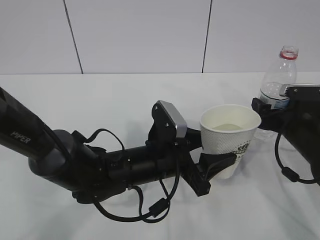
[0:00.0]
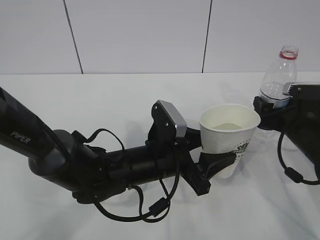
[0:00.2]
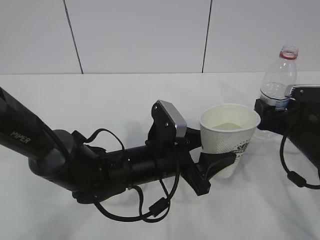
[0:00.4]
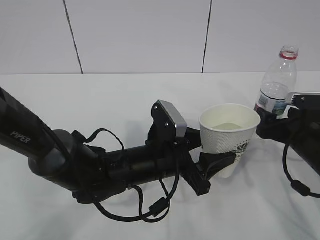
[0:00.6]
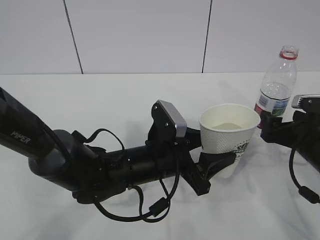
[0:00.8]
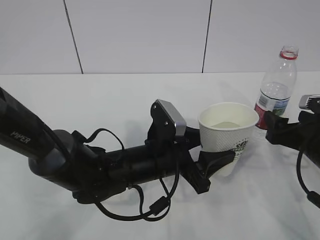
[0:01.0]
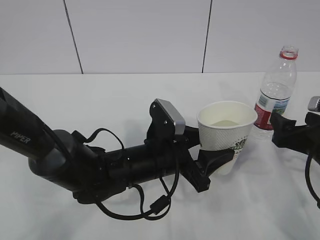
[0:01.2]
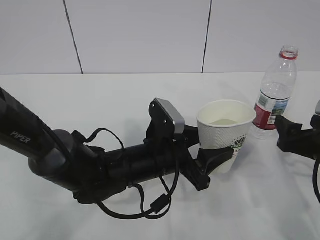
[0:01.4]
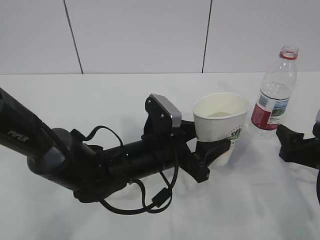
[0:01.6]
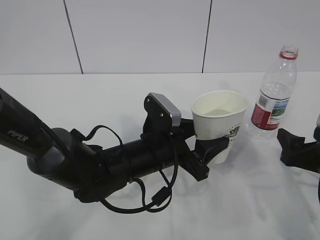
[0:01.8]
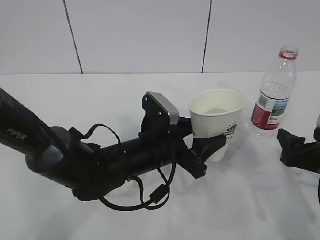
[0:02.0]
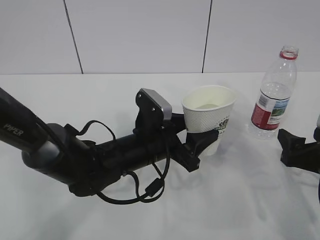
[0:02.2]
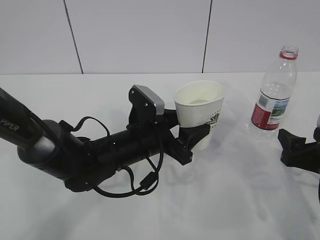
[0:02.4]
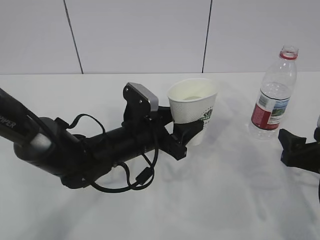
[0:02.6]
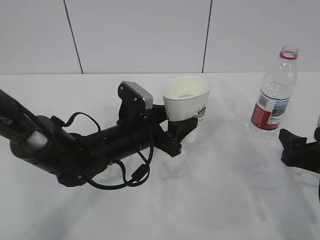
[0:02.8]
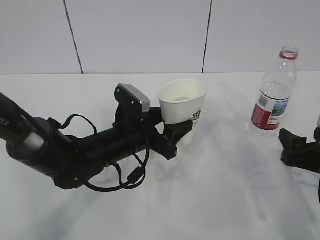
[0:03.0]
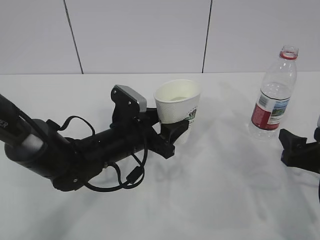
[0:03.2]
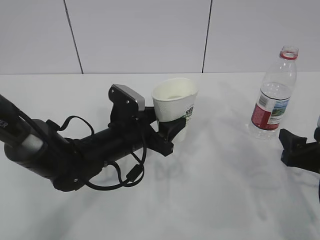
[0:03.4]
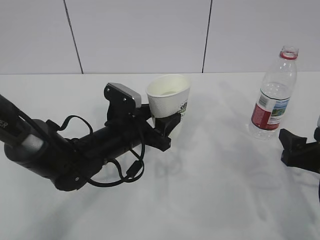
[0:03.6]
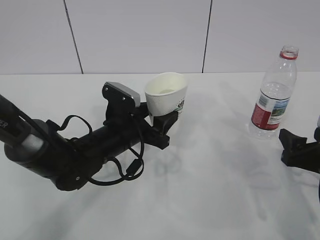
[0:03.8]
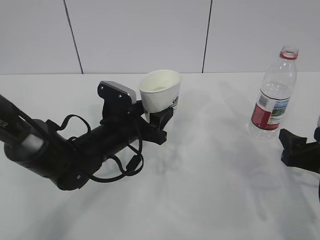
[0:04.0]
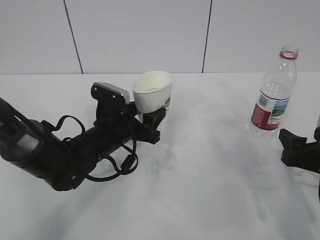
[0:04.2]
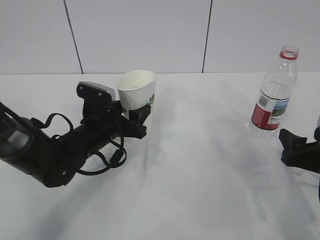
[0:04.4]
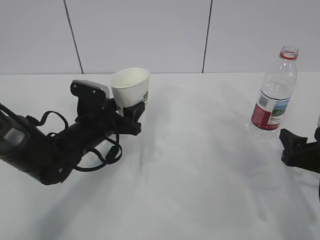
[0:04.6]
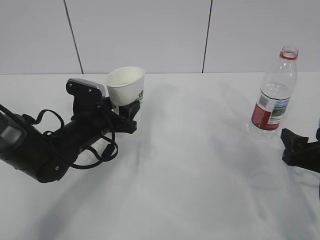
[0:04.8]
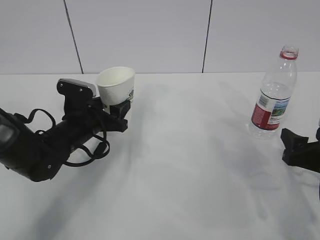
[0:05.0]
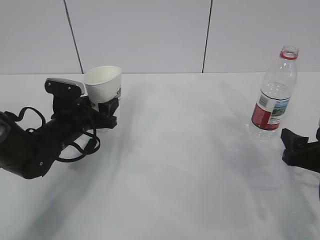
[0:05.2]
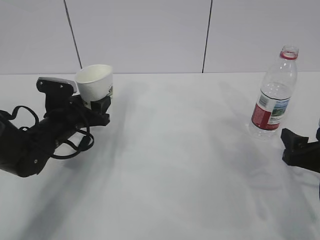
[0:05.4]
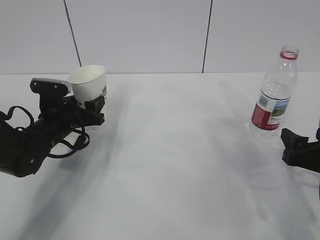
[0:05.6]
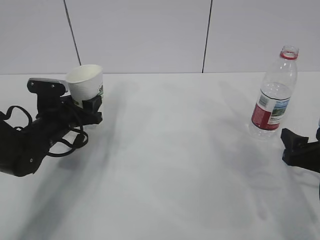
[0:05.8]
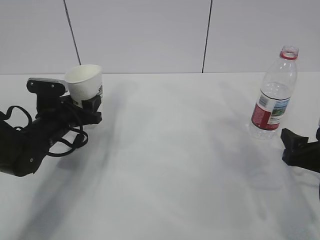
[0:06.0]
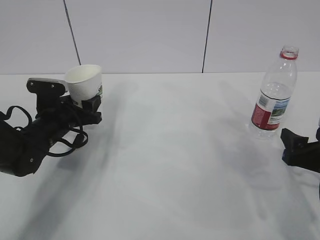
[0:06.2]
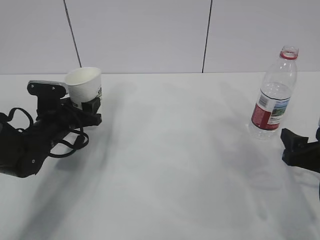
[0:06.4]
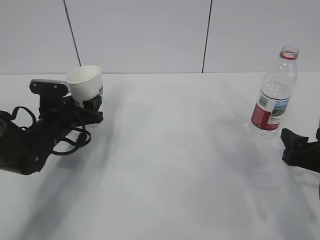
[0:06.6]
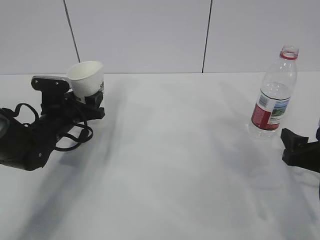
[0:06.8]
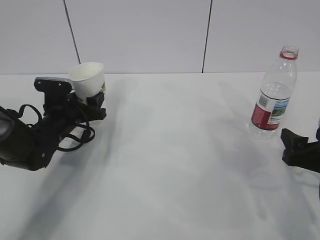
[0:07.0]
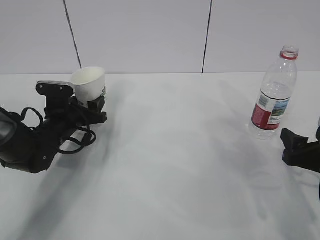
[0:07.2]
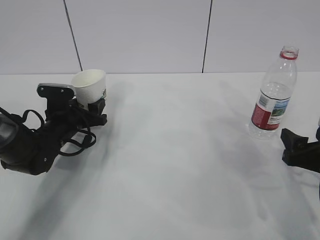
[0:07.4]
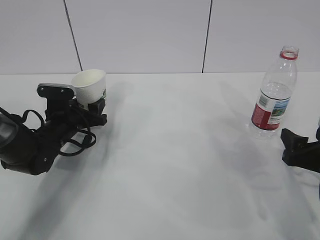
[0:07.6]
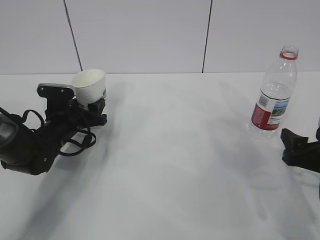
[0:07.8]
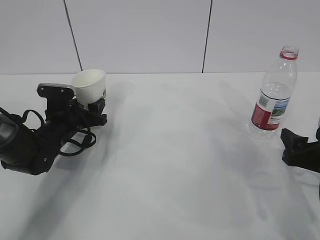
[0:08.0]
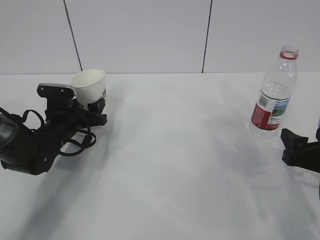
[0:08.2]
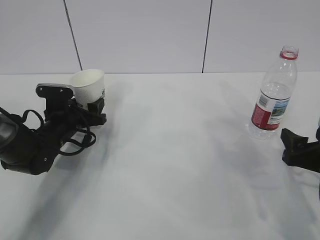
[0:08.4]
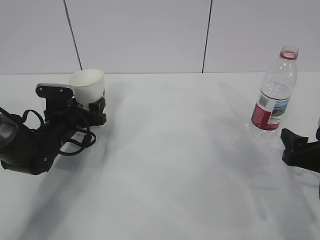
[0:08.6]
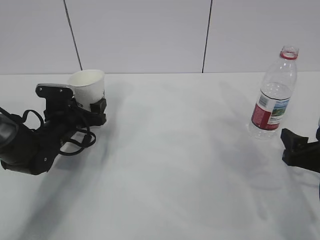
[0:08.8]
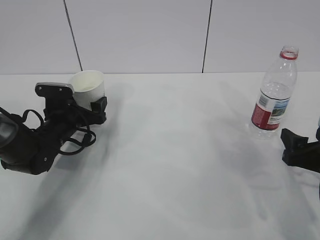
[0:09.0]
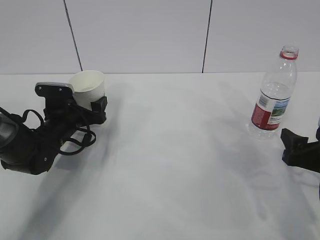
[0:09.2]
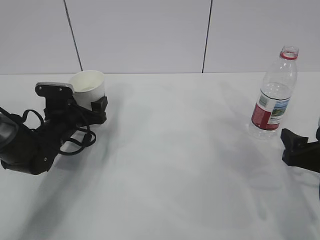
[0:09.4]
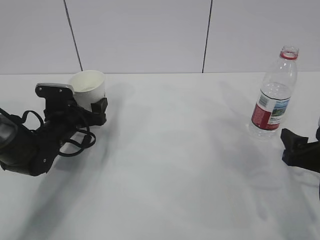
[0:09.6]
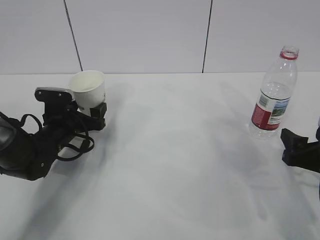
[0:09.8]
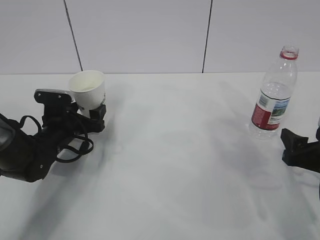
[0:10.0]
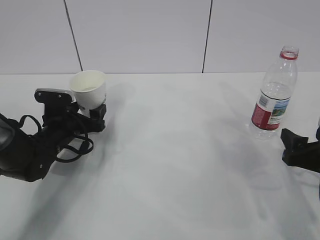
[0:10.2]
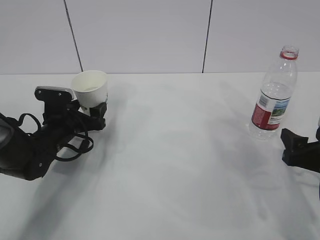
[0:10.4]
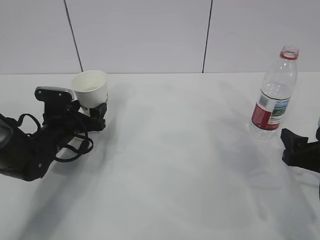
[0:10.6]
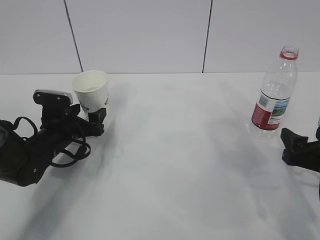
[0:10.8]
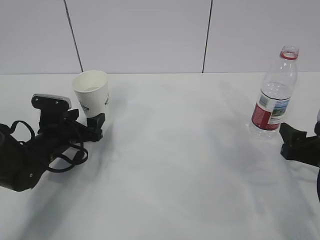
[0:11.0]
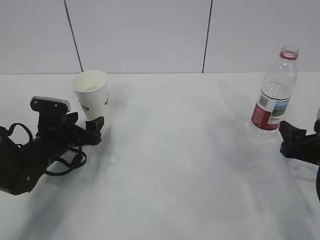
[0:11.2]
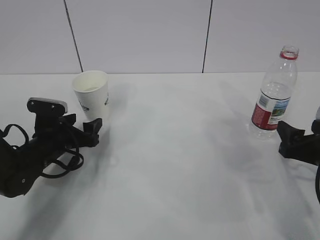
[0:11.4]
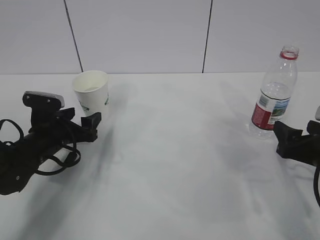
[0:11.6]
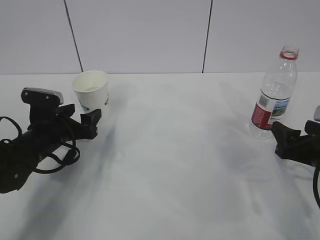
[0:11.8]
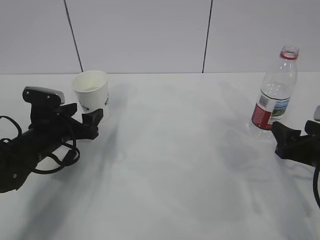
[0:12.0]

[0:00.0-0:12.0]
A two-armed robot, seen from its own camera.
0:00.0 to 0:01.6: The right gripper moves backward, approximately 10 cm.
0:01.6 to 0:03.0: The left gripper shifts by some 5 cm.
0:03.0 to 0:04.4: The left gripper travels to the left by approximately 5 cm.
0:04.4 to 0:06.0: The left gripper is displaced to the left by approximately 10 cm.
0:06.0 to 0:07.6: The grippers make only small movements.
0:07.6 to 0:09.0: The left gripper opens its fingers.
0:09.0 to 0:12.0: The grippers move only a little.

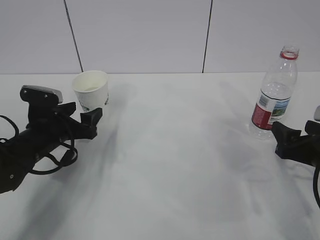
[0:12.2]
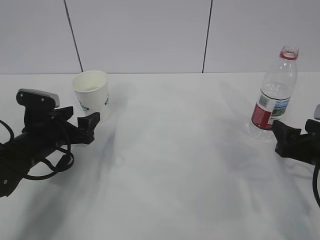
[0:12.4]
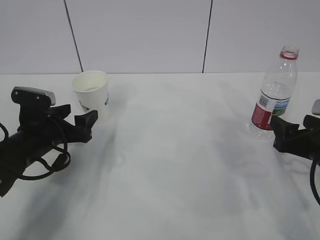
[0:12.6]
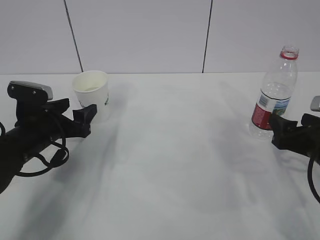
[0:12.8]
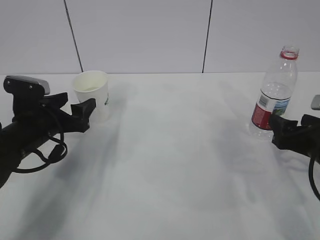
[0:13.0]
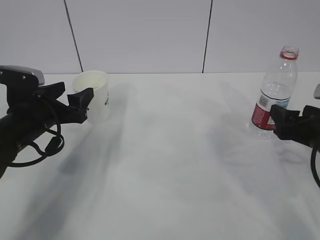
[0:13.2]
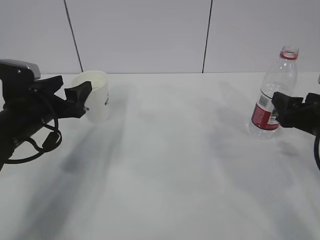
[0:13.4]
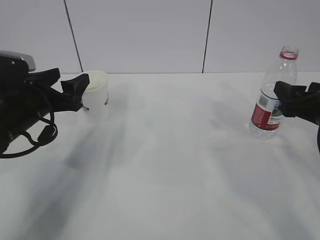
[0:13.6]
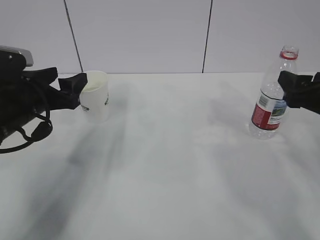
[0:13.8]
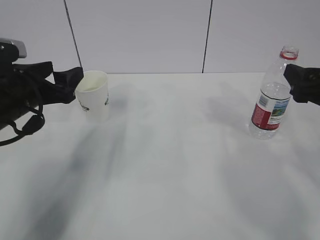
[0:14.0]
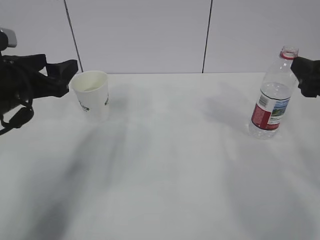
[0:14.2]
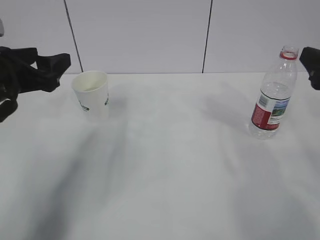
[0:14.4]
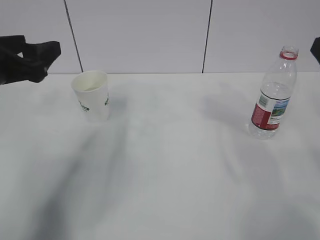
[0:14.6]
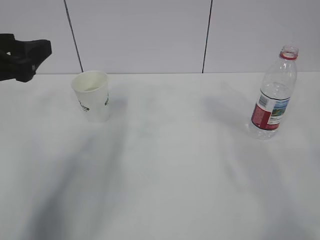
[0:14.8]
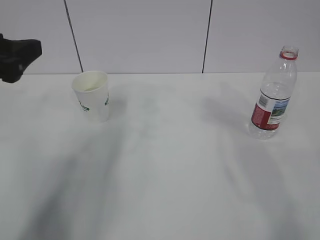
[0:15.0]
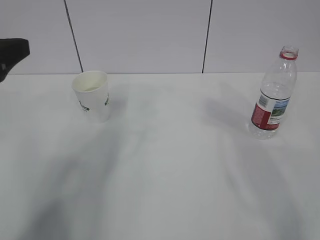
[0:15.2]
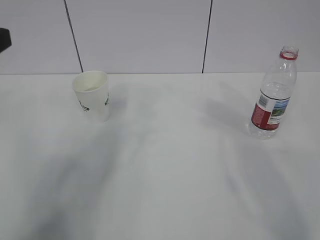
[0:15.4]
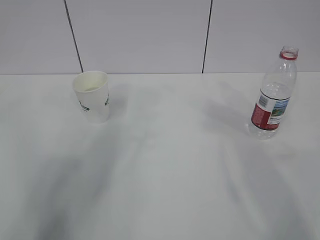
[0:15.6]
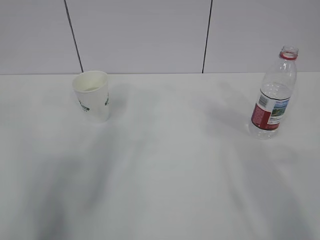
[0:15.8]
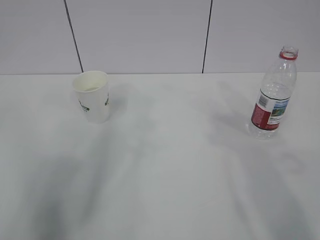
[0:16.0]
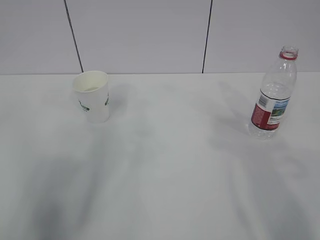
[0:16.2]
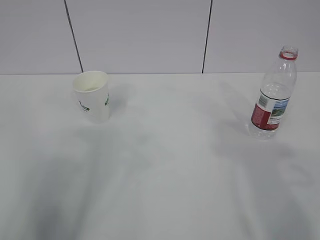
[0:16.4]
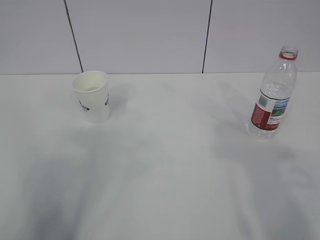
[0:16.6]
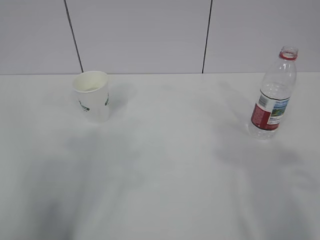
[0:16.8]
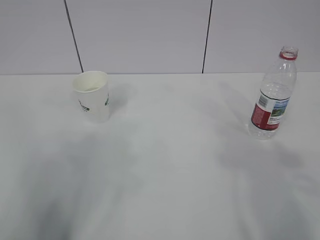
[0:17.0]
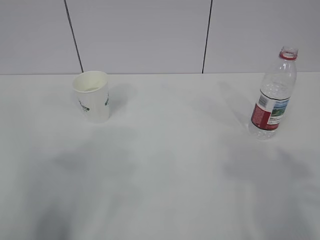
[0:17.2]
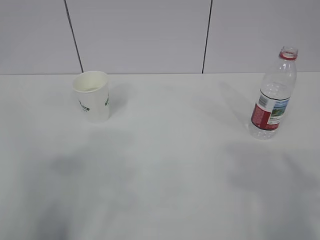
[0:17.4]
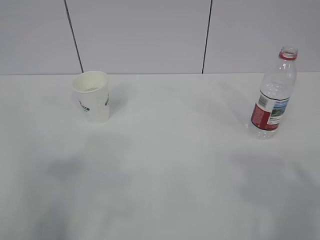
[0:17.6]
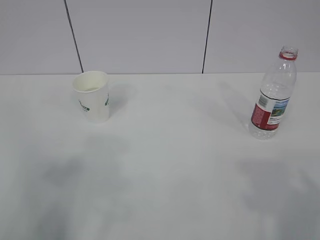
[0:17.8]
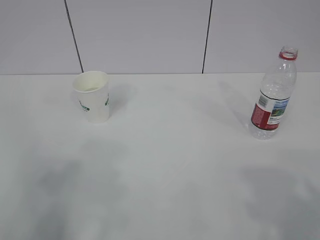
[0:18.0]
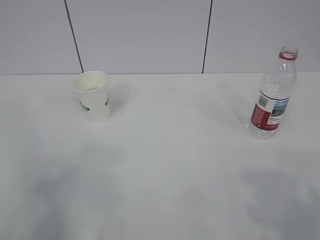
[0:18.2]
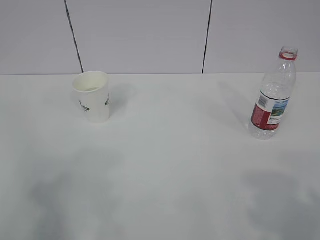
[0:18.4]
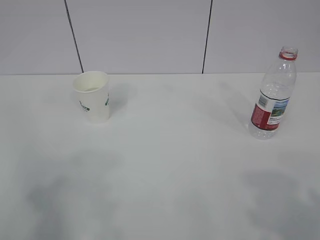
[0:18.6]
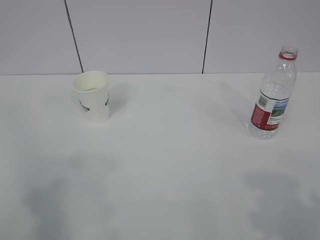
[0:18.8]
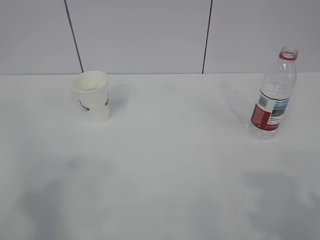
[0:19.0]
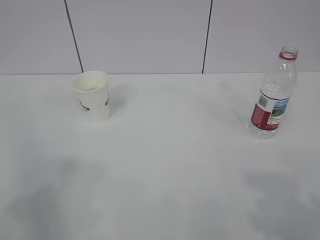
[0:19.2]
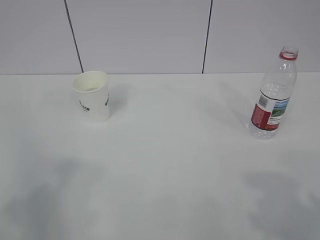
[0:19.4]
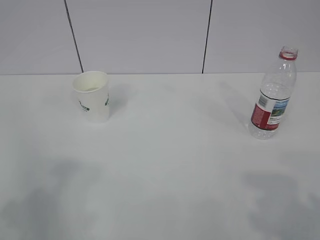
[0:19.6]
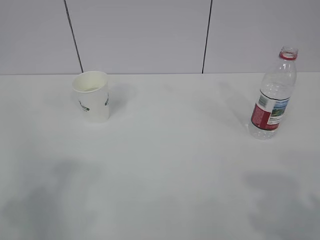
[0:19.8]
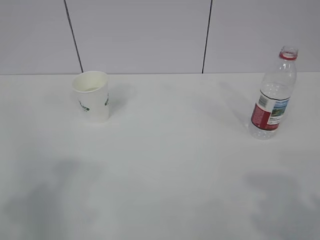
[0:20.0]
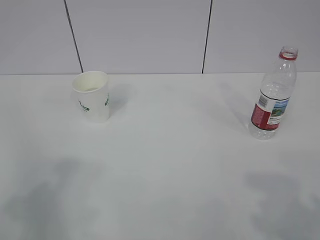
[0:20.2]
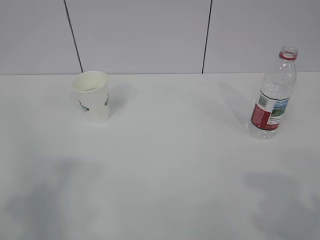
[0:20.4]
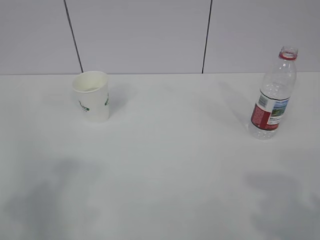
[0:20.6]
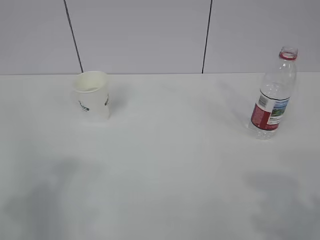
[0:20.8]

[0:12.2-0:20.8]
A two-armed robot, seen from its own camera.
0:12.2 to 0:13.6: Both grippers move upward, some 5 cm.
0:13.6 to 0:15.0: Both grippers move upward and backward, some 15 cm.
0:15.0 to 0:16.6: The left gripper heads backward, covering approximately 15 cm, and closes.
0:19.4 to 0:20.8: Neither gripper changes place.

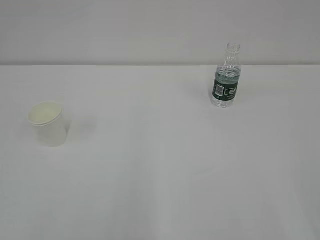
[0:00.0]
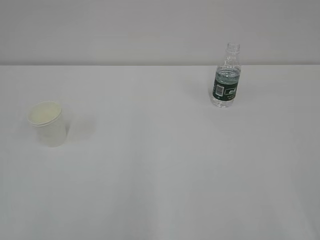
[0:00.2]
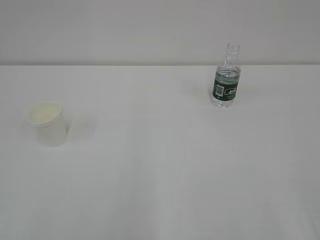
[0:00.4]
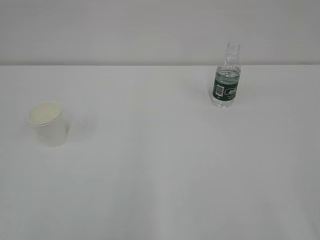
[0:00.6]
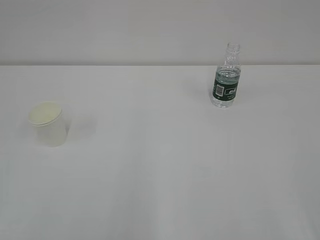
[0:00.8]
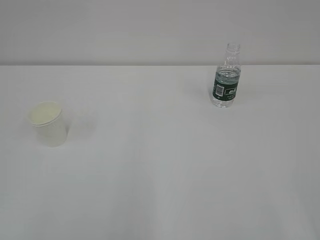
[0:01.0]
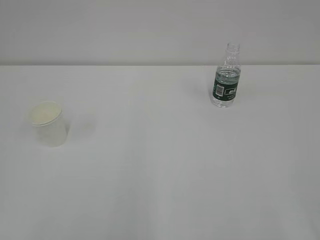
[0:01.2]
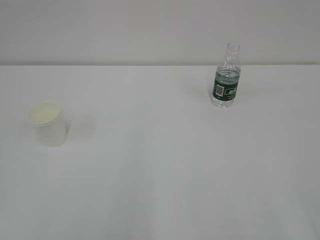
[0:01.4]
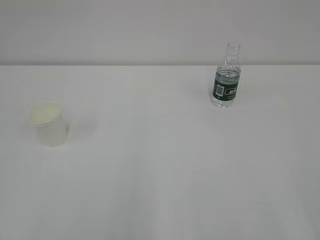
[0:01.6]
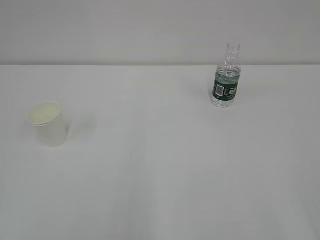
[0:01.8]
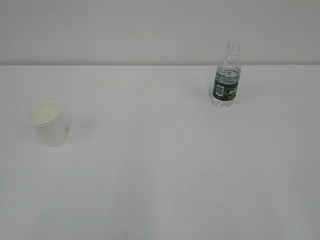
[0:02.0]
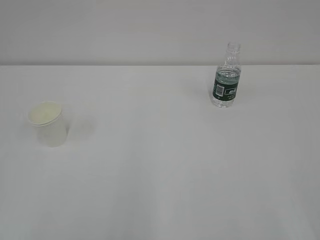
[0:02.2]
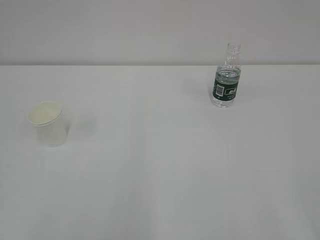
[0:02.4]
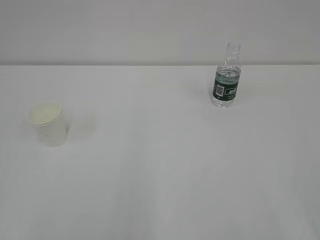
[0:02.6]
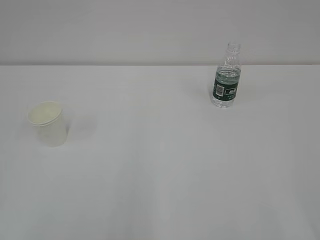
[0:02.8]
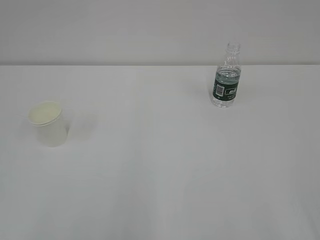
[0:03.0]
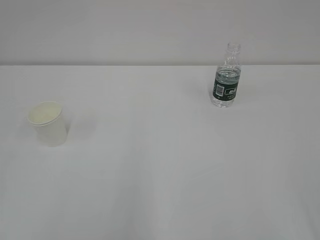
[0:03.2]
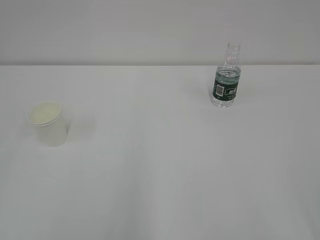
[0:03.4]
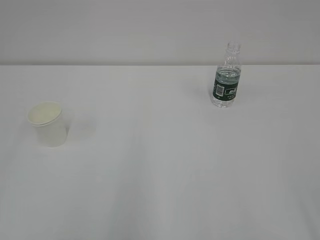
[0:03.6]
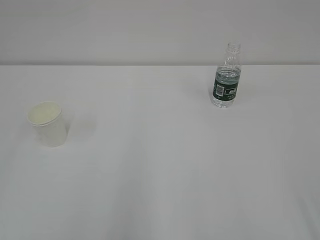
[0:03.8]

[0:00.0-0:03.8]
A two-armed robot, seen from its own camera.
0:01.2 to 0:02.6: Neither gripper changes place.
